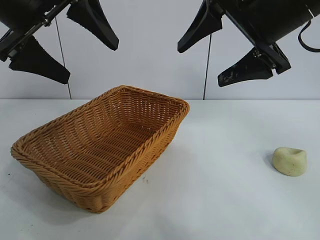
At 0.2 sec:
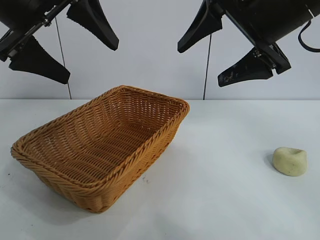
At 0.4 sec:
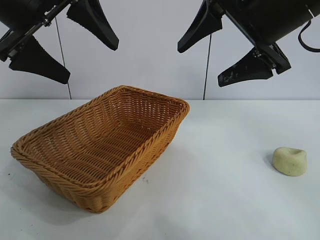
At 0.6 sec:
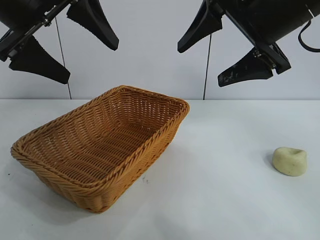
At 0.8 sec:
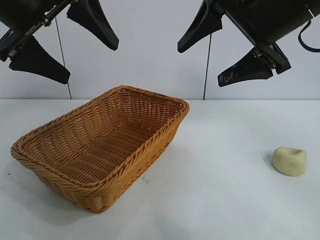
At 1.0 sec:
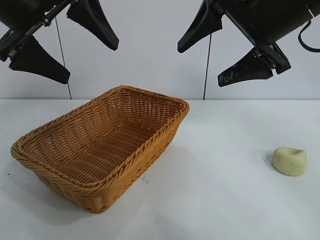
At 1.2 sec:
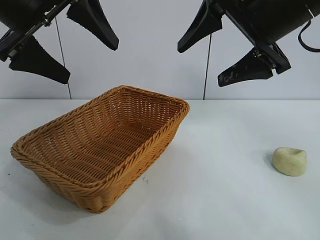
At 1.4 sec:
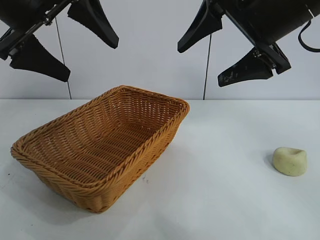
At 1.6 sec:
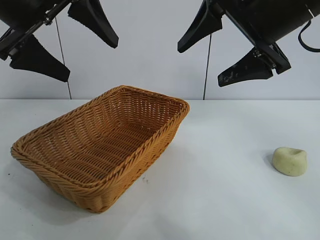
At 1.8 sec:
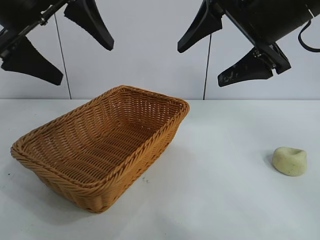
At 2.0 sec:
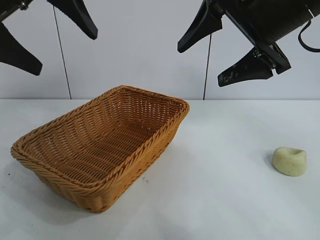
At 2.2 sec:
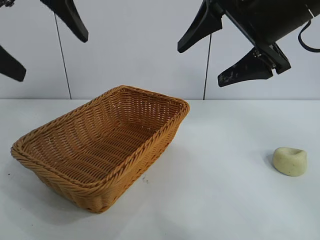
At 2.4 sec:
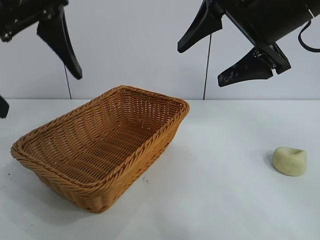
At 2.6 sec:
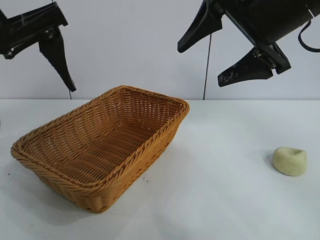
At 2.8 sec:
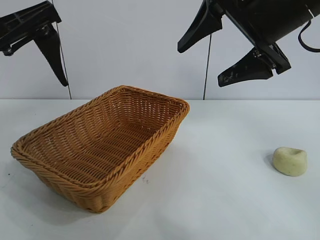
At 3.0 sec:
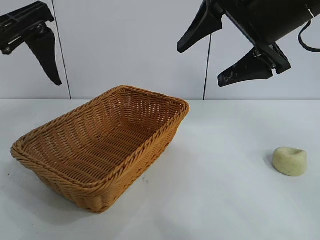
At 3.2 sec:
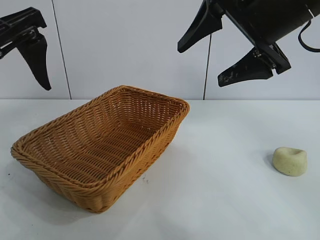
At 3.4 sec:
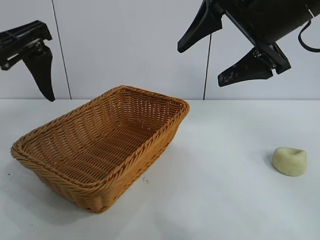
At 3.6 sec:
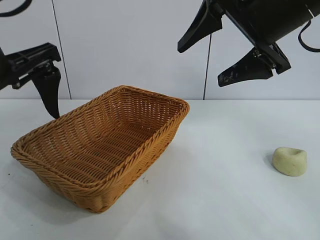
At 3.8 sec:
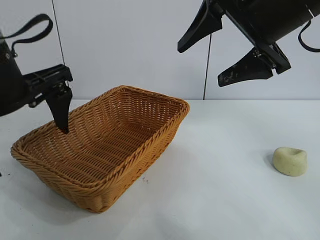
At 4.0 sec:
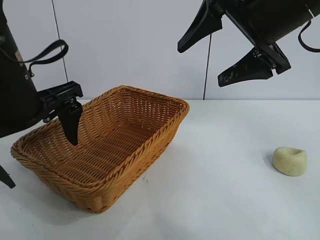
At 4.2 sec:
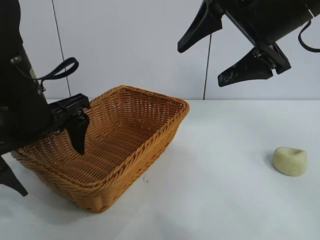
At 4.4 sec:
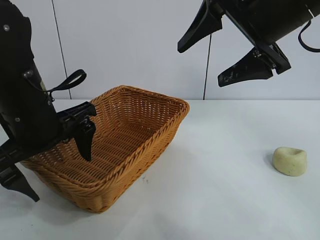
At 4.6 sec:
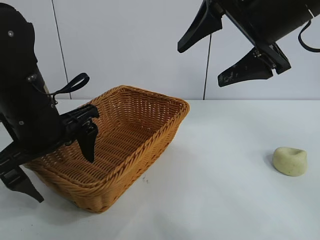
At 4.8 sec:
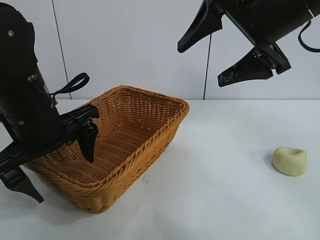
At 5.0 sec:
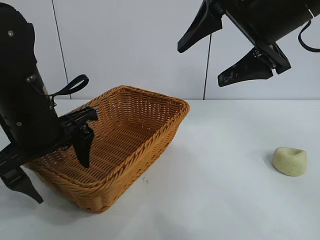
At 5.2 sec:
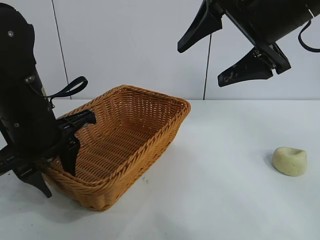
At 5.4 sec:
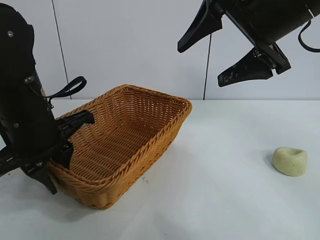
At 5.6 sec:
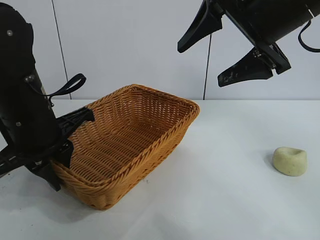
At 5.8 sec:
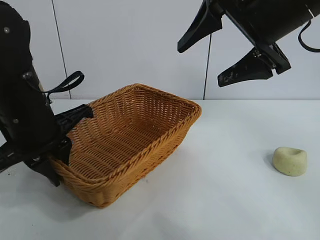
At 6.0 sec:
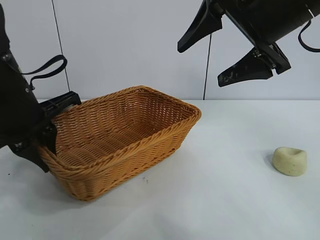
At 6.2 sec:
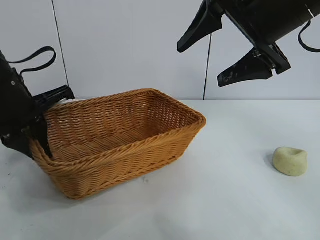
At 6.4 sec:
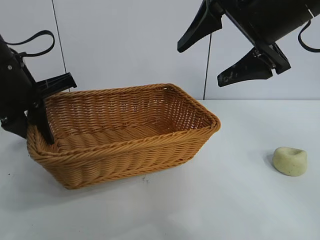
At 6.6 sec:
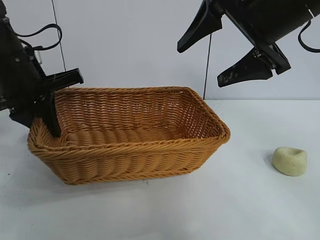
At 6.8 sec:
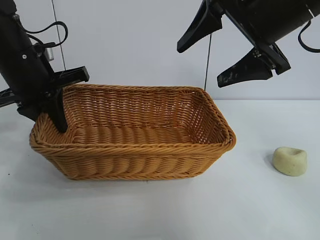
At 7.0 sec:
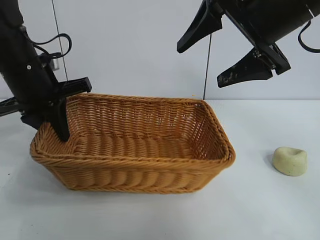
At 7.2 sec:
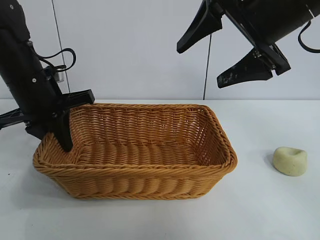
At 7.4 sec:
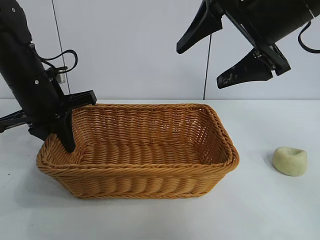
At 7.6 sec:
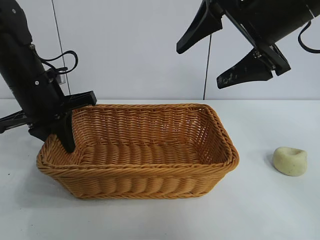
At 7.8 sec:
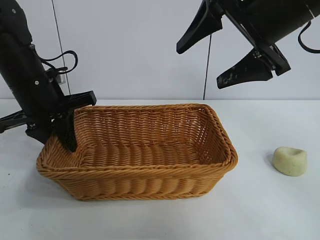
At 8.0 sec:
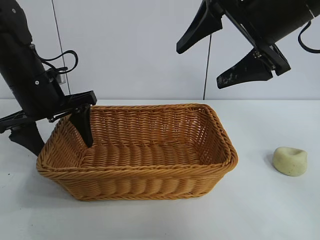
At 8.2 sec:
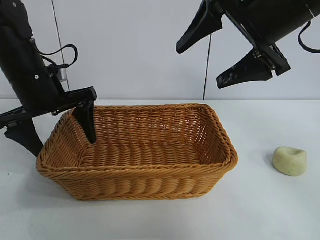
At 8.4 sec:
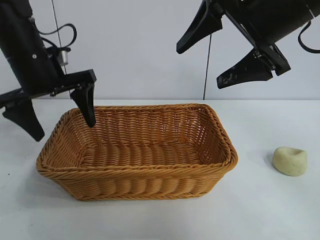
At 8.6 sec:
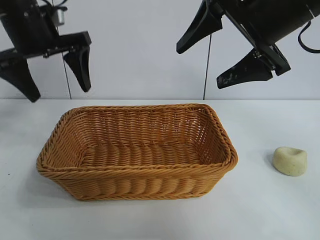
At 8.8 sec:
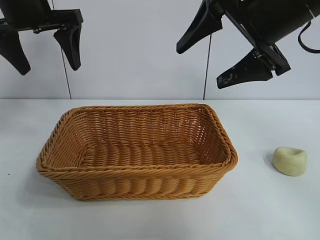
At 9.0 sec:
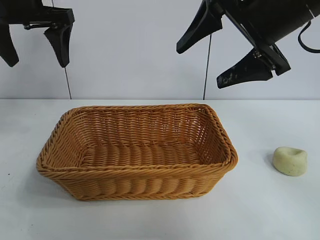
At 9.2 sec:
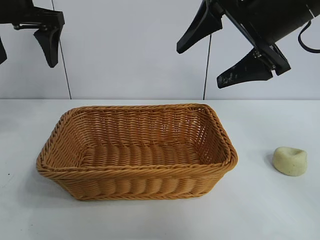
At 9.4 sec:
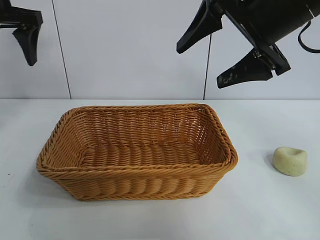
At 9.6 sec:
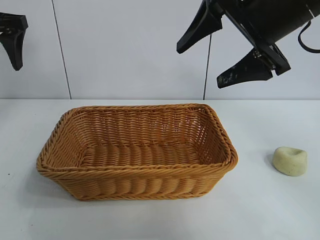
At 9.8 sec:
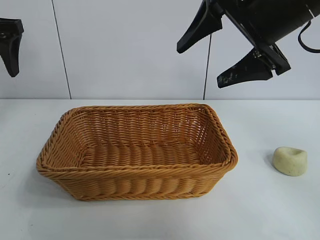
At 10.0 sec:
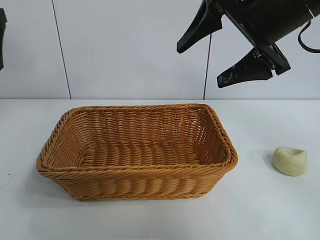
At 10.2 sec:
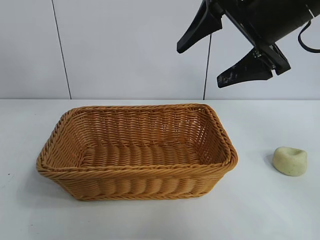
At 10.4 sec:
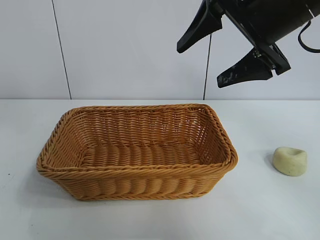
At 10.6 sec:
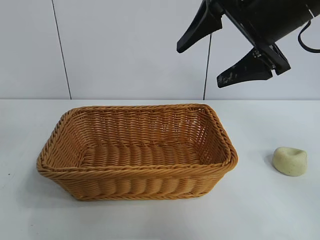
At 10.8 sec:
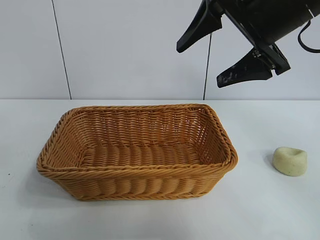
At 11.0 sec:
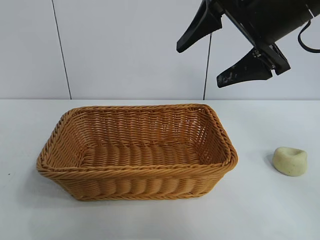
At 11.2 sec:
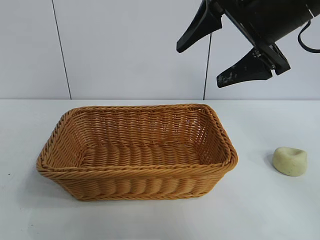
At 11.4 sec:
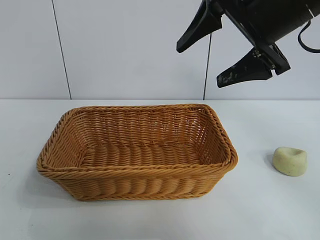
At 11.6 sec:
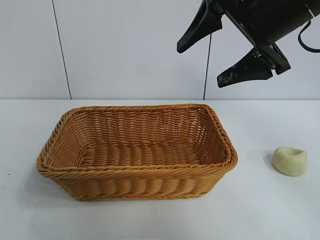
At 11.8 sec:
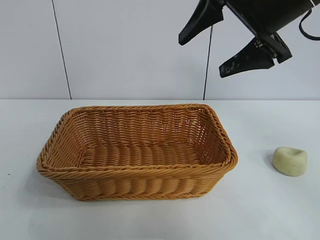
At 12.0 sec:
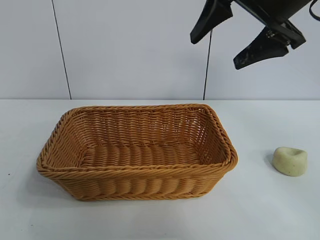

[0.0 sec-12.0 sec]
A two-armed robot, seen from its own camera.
Task of the whole recording: pick up the egg yolk pastry and put it into the basket.
Step, 1.4 sec to 5.4 sec: Grasp the basket with left gripper.
Step, 5.8 sec to 8.0 sec: Place the basket in the center of view with left gripper.

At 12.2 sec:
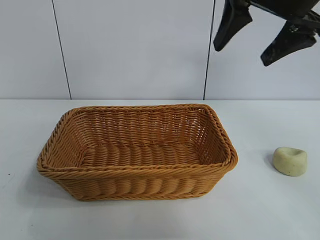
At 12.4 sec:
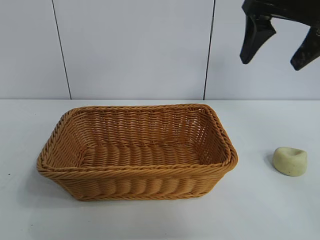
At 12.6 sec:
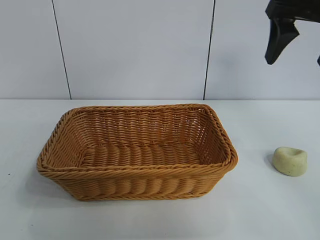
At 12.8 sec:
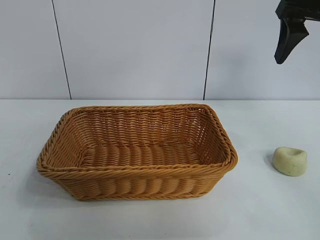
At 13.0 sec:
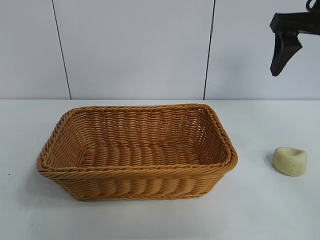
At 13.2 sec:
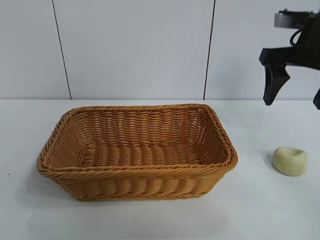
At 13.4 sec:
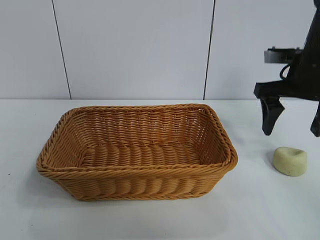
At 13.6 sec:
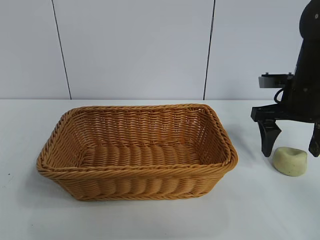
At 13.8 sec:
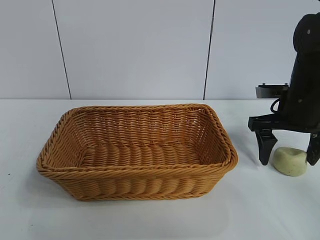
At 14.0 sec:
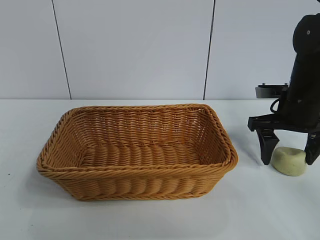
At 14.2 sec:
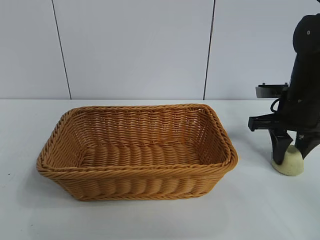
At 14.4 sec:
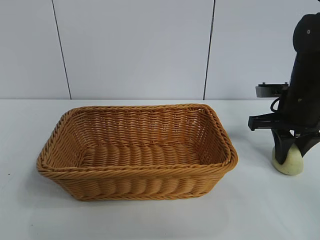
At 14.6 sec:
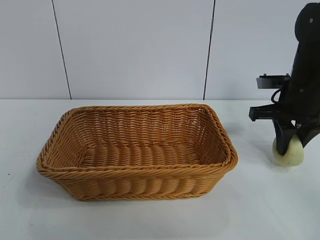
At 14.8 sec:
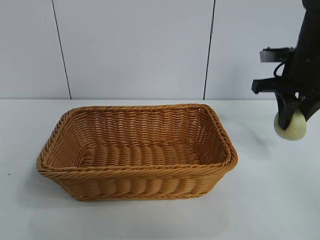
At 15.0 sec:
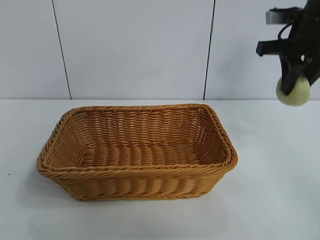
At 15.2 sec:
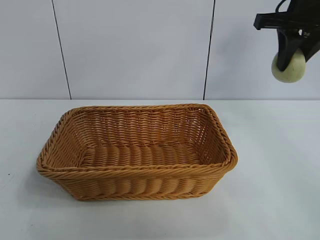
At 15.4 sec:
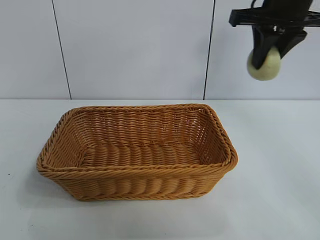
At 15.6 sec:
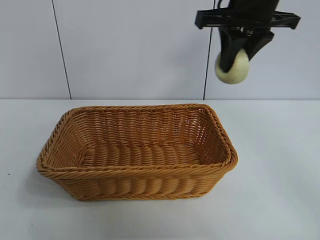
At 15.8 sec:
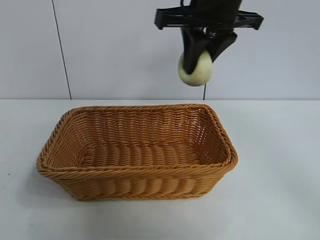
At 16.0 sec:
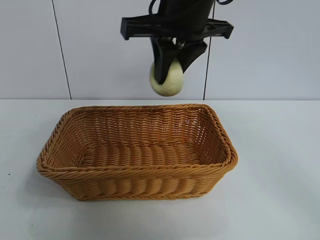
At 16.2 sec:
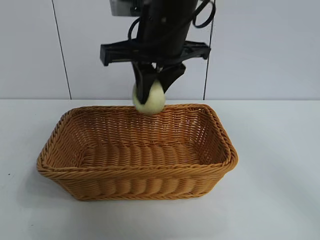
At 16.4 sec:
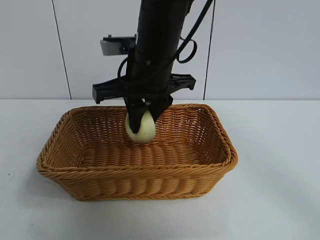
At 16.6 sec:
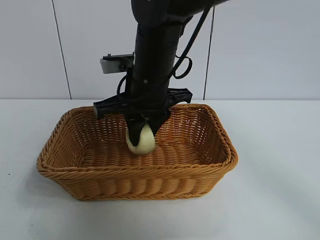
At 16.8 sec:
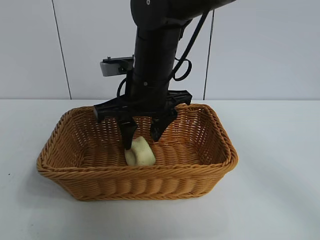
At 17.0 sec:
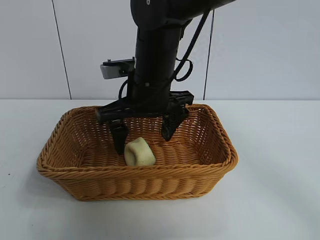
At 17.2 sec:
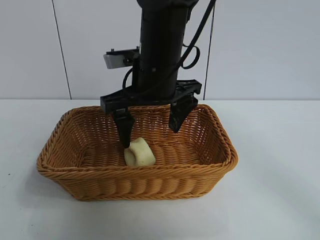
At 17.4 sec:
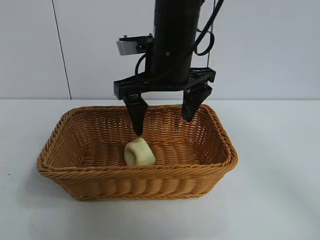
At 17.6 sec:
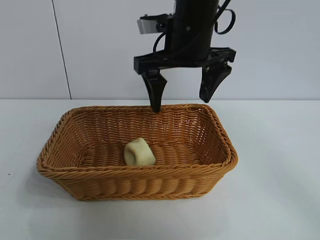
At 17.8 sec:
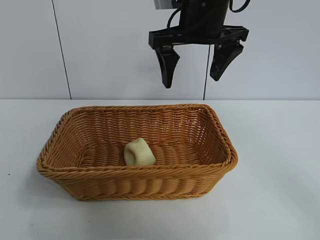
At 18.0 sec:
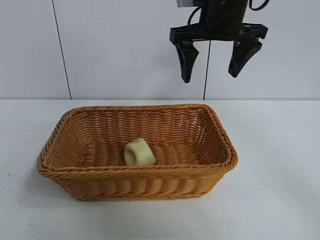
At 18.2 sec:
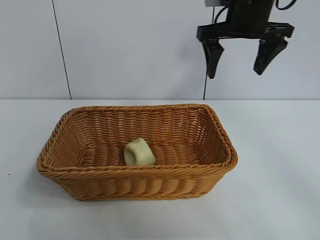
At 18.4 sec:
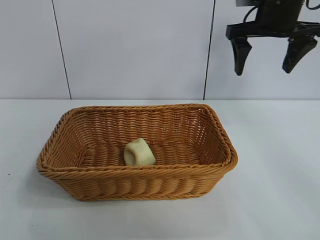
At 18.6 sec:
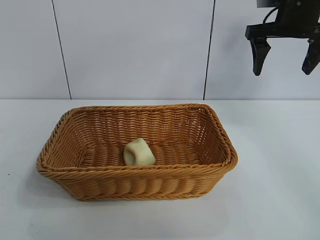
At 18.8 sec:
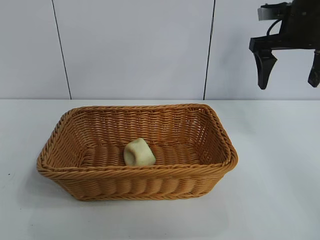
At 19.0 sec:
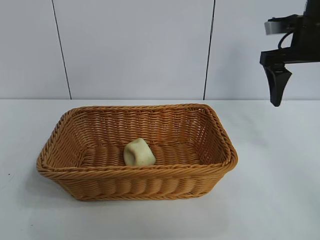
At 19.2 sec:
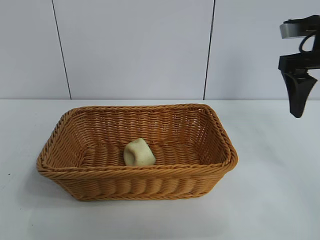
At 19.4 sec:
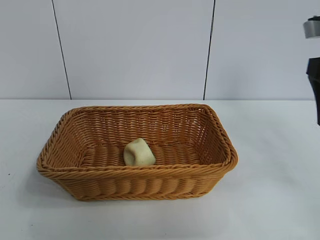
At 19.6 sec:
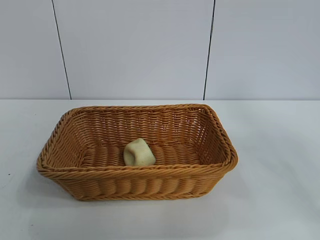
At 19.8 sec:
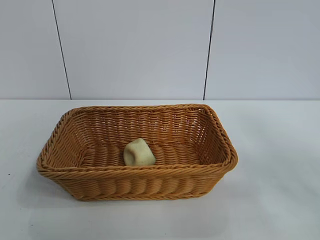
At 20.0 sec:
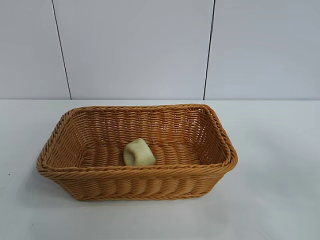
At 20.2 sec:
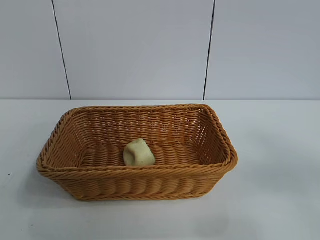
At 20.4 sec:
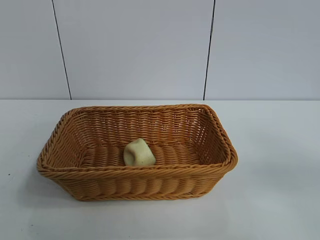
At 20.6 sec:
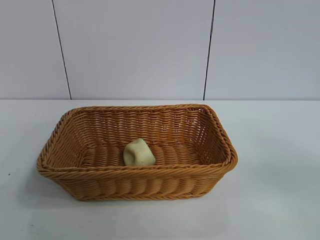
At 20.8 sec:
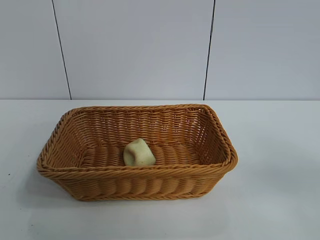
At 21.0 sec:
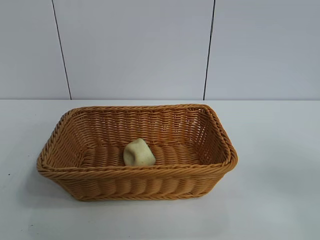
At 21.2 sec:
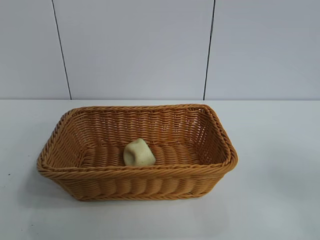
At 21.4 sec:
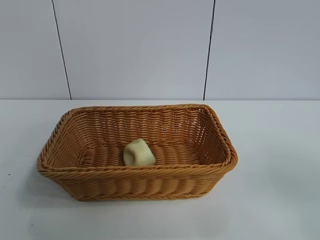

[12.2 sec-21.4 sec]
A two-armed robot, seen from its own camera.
Task of the whole recording: pick up the egg yolk pastry and put it into the basket.
Step, 12.2 sec to 14.4 sec: Grasp egg yolk pastry with right gripper.
Step, 14.6 sec to 17.0 sec: Place the egg yolk pastry in the basket with right gripper.
